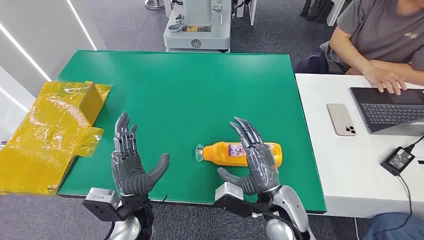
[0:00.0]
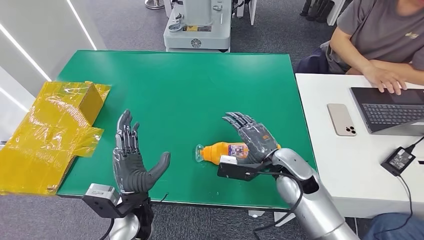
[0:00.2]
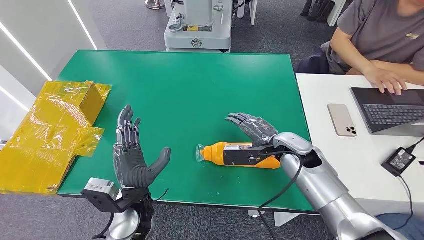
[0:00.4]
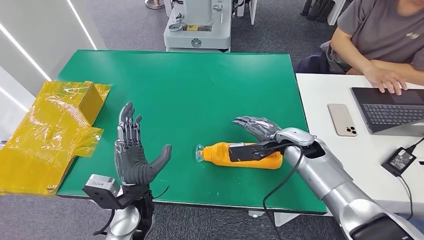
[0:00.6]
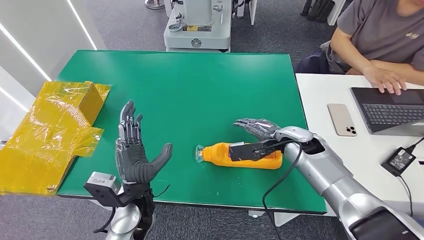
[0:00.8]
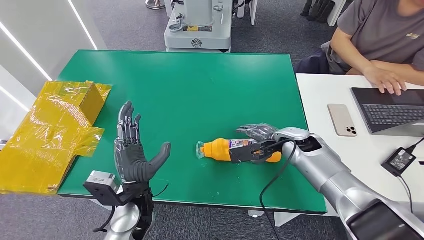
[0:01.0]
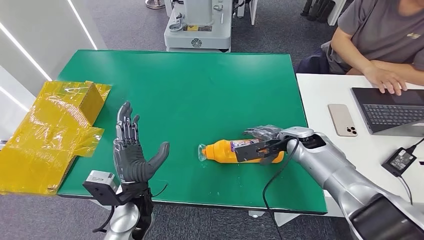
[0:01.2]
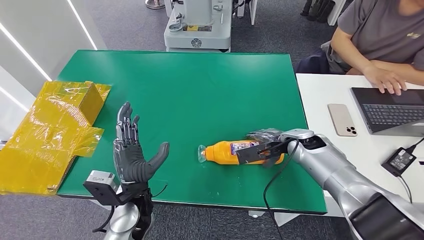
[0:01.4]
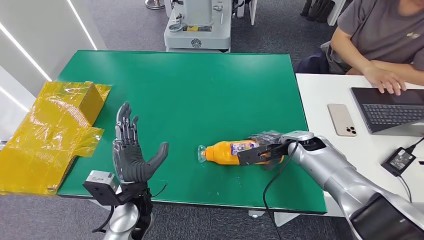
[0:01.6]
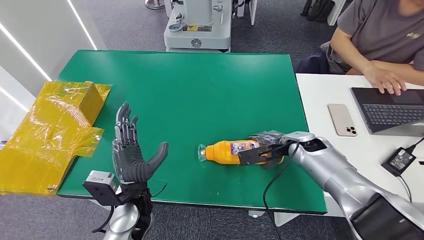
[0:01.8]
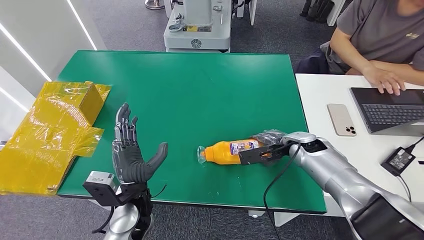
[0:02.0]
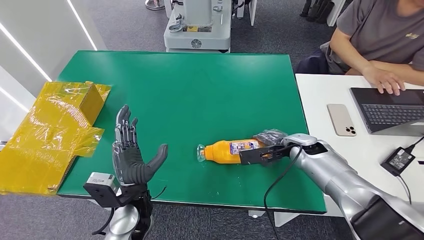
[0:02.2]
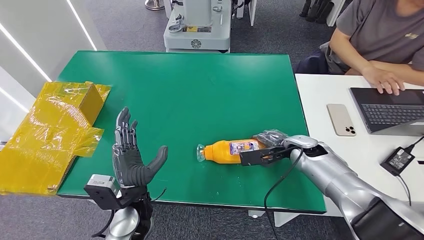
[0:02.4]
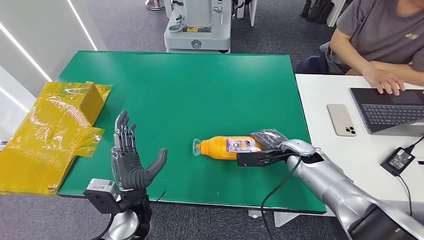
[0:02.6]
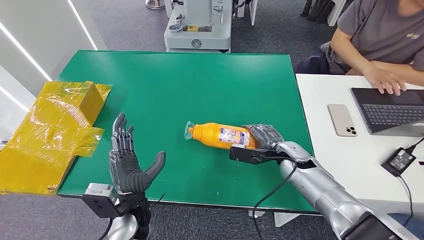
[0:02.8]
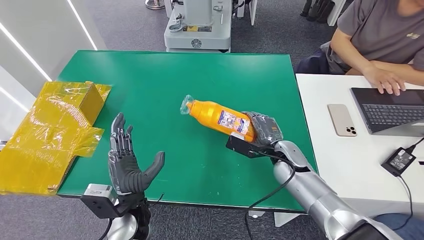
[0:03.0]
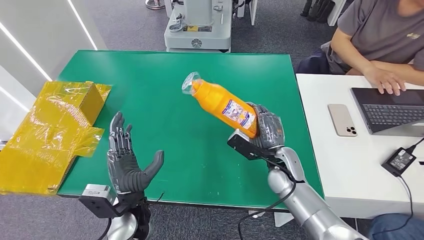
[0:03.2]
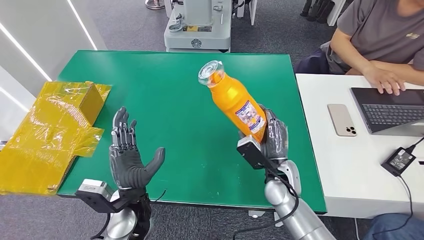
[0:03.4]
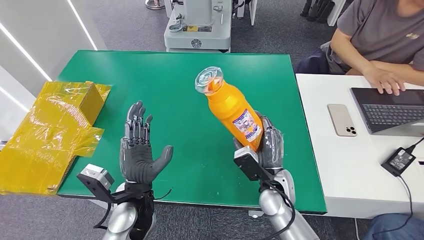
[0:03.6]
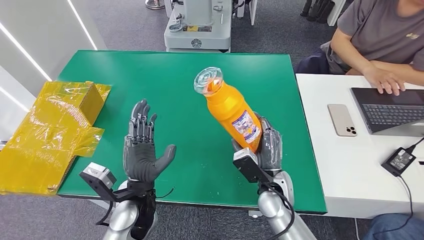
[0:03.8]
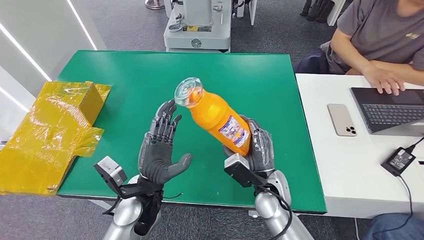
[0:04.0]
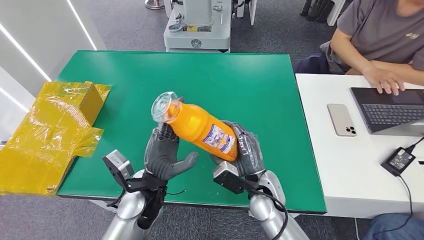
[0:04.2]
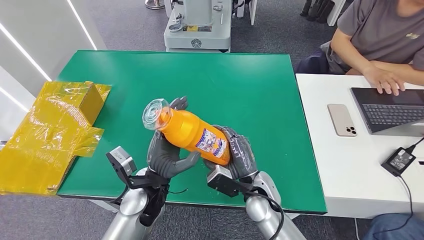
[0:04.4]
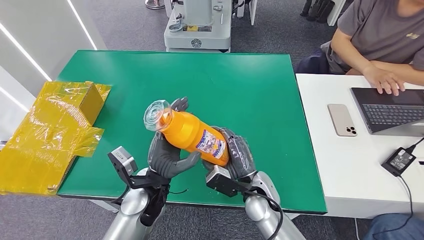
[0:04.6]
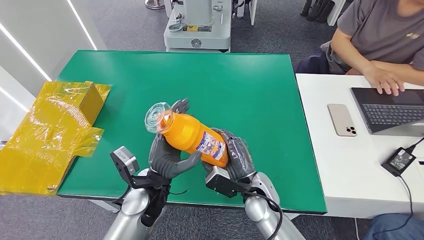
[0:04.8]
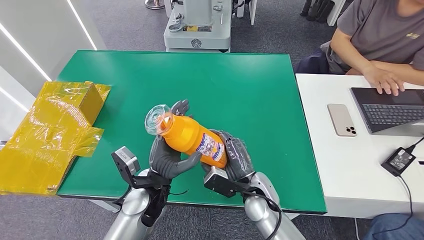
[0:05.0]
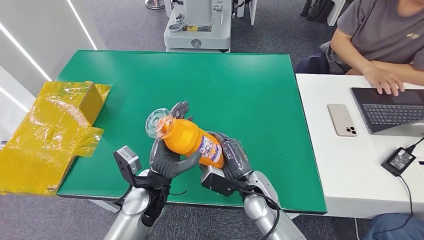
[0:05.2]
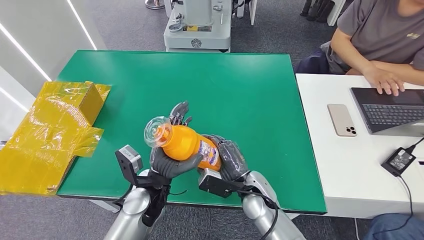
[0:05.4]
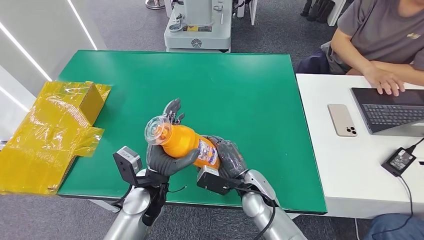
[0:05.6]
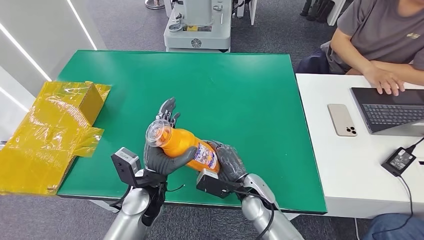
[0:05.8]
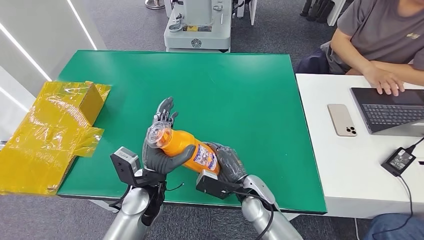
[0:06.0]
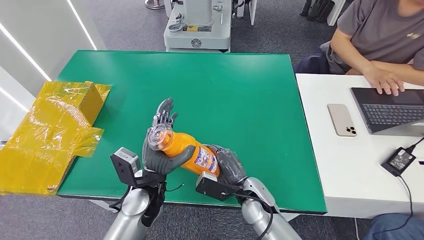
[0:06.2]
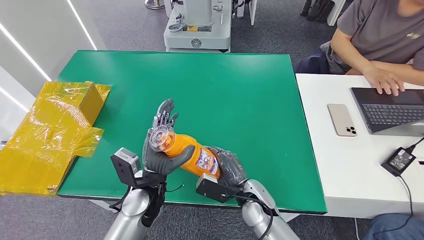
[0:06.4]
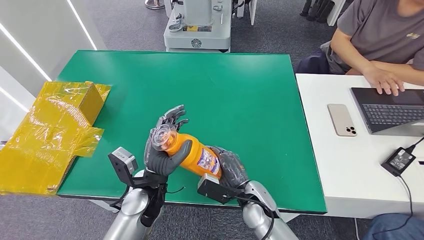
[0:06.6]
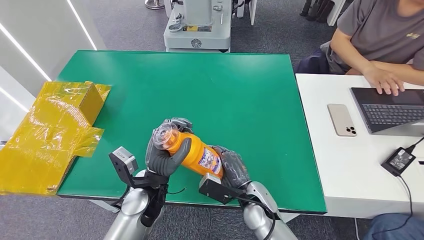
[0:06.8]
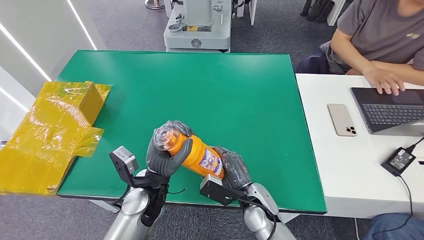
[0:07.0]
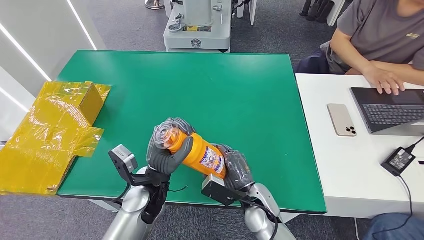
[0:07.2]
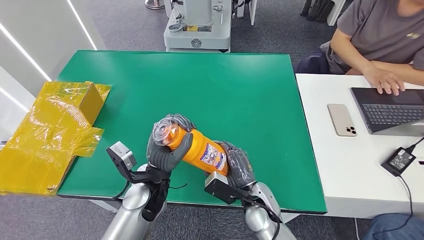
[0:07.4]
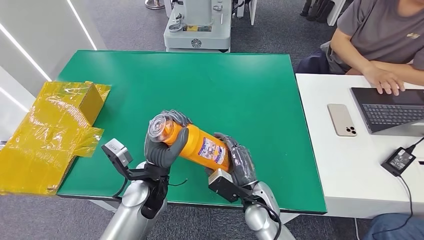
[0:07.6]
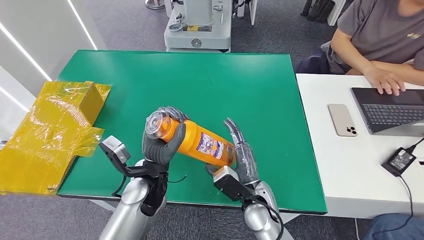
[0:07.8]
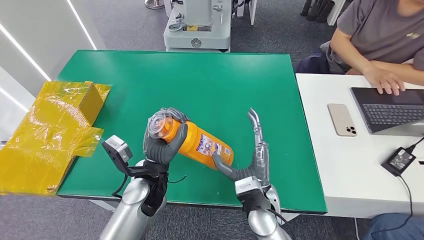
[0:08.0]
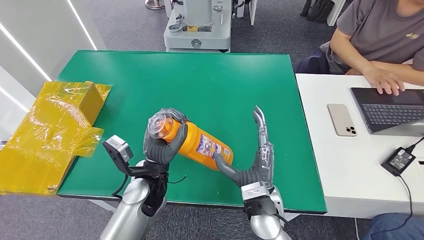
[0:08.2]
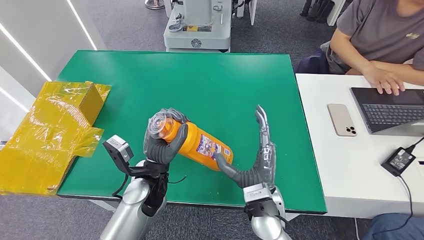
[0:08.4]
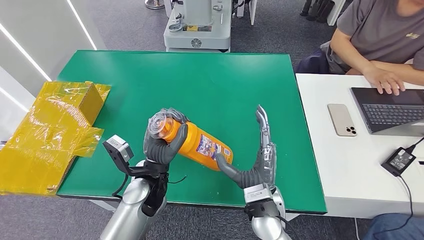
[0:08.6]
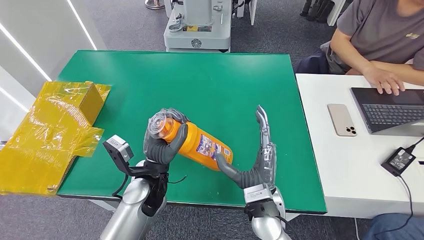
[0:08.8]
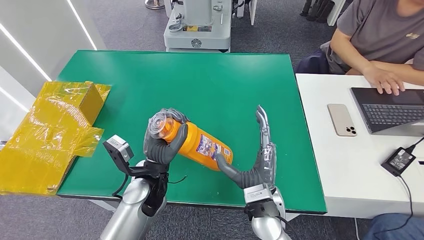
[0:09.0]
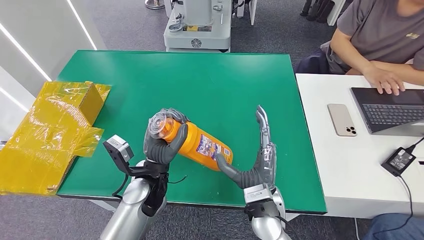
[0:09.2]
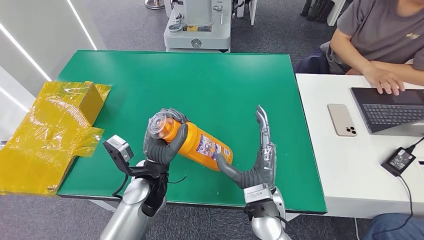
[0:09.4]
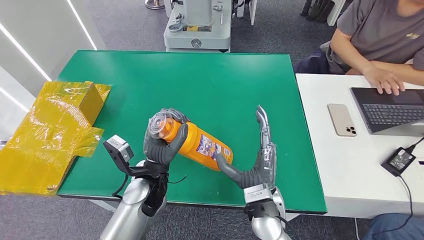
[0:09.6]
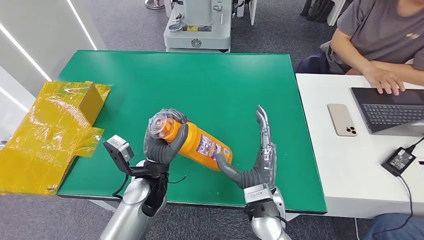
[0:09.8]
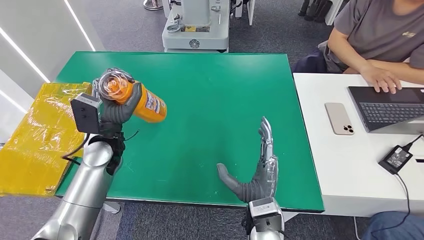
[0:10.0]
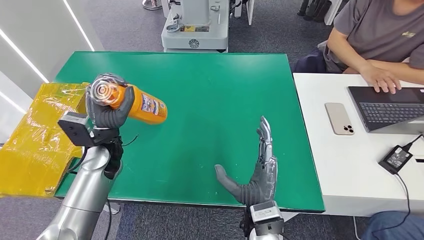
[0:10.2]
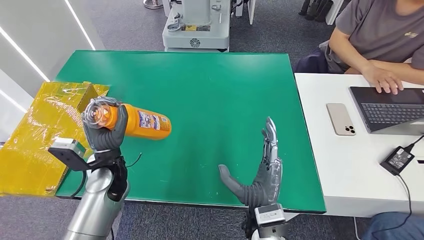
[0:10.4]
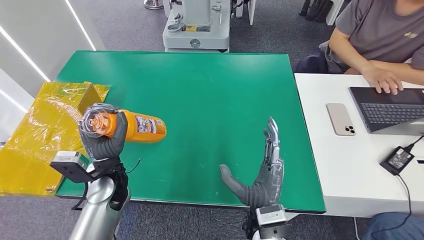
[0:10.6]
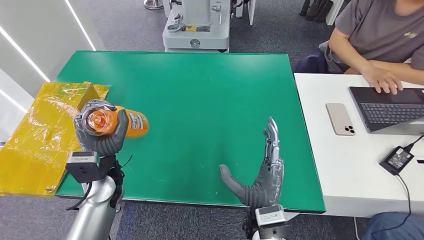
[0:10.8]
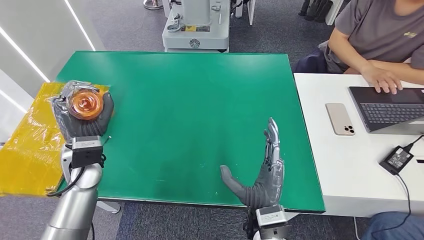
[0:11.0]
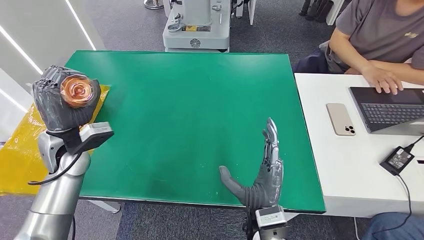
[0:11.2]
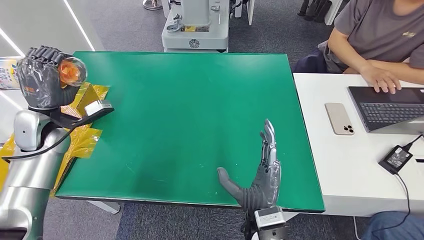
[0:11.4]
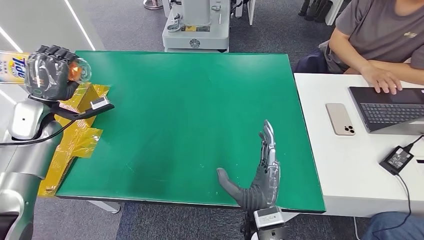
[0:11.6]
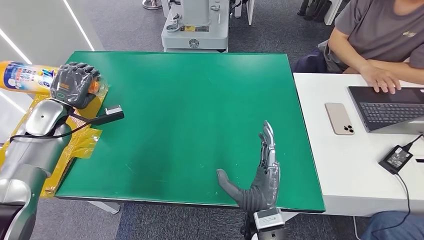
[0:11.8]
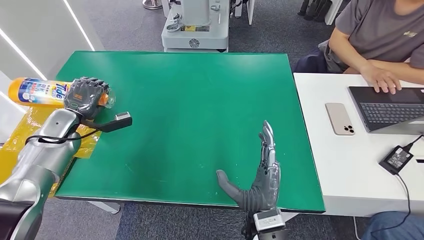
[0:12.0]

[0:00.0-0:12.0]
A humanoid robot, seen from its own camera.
Step, 0:00.0 to 0:04.8: Pick up the bottle from the table.
0:01.6 to 0:03.0: The right hand moves to the left, about 5 cm.
0:03.0 to 0:04.4: The left hand changes place by about 5 cm. The right hand heads to the left and backward, covering roughly 15 cm.
0:04.4 to 0:06.0: The hands stay close to where they were, moving slightly.
0:06.0 to 0:07.6: There are only small adjustments of the hands.
0:07.6 to 0:09.0: The right hand is displaced upward by approximately 5 cm.
0:09.0 to 0:10.4: The left hand moves to the left, about 10 cm.
0:10.4 to 0:12.0: The left hand heads to the left and forward, covering roughly 20 cm.

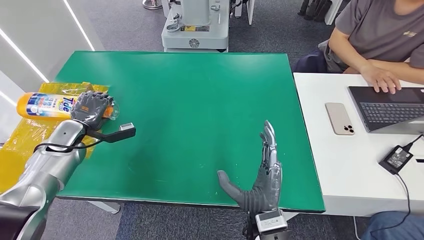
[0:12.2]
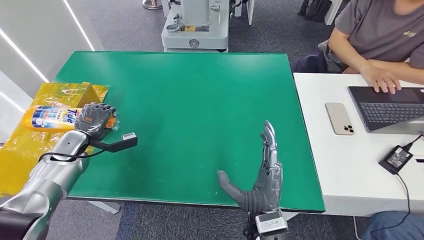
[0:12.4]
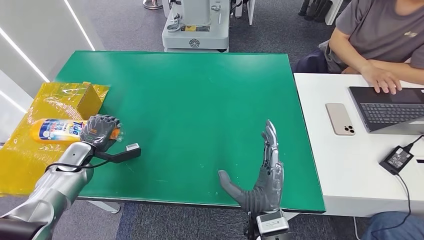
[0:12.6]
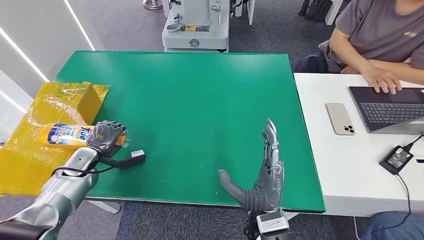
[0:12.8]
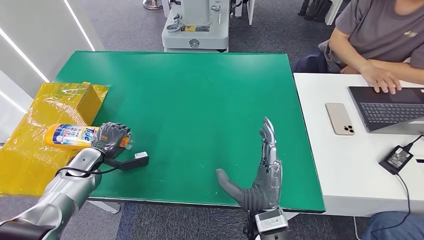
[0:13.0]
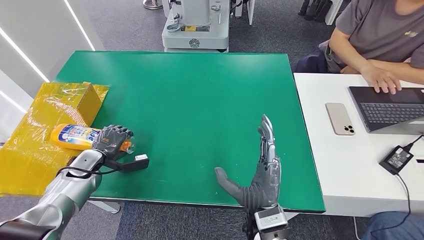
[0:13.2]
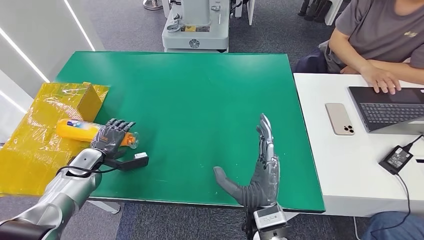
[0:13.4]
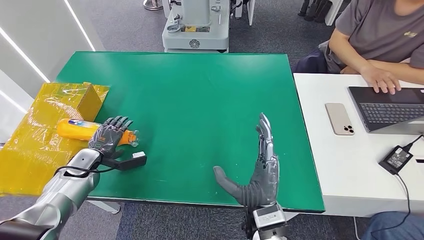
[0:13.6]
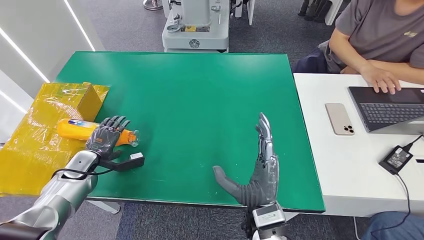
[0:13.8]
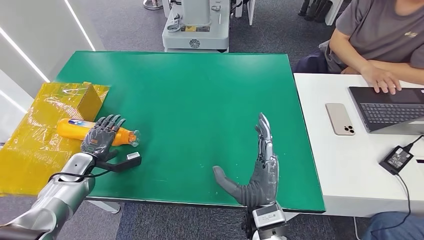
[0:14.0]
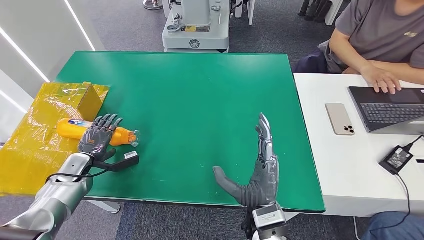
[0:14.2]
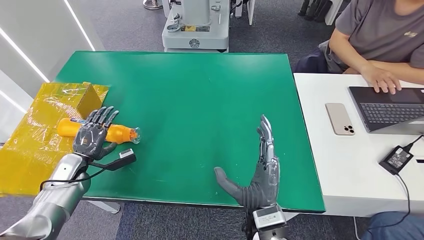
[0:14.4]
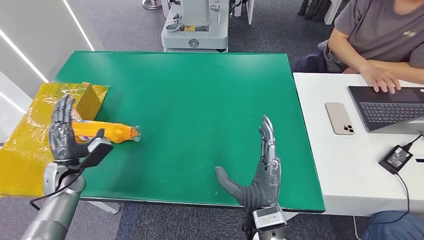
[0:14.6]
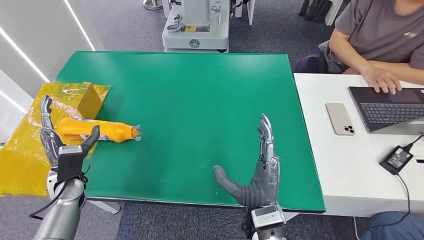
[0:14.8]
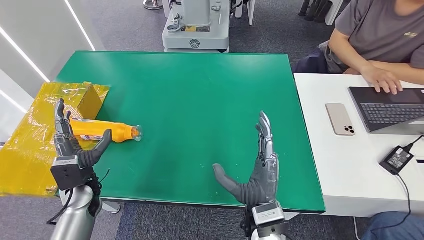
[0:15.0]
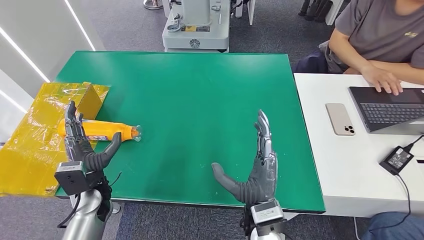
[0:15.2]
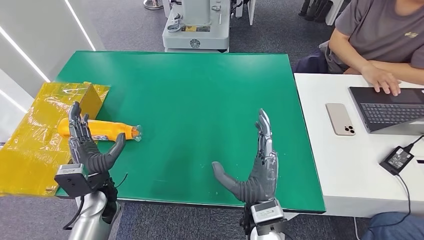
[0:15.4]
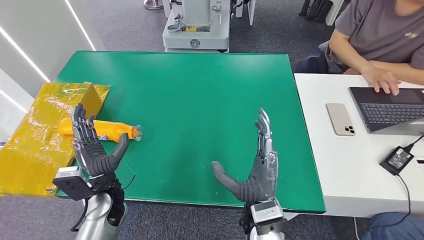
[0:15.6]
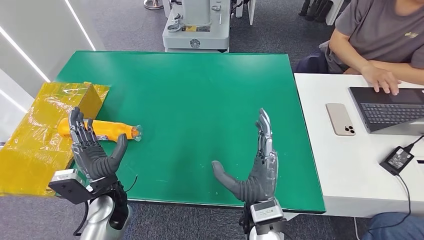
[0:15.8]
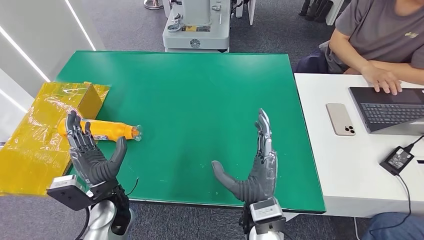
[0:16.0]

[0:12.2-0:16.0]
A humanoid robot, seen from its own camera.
Step, 0:12.2 to 0:16.0: Turn the bottle to the front side.
0:12.2 to 0:13.4: The left hand goes approximately 10 cm downward and backward.
0:13.4 to 0:14.8: The left hand is displaced backward by approximately 5 cm.
0:14.8 to 0:16.0: The left hand shifts some 15 cm to the right.
